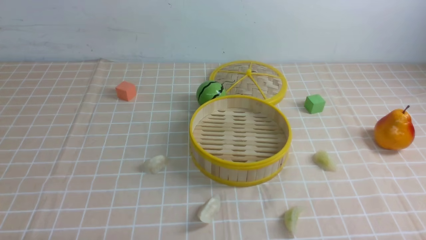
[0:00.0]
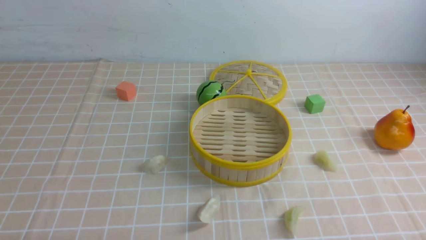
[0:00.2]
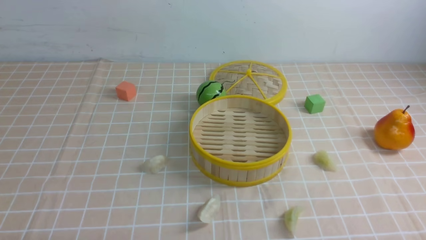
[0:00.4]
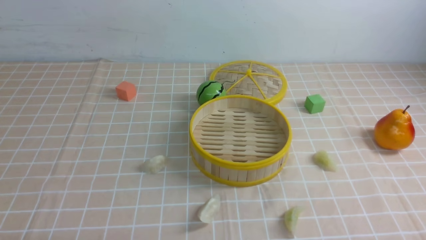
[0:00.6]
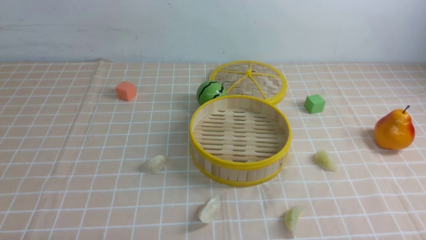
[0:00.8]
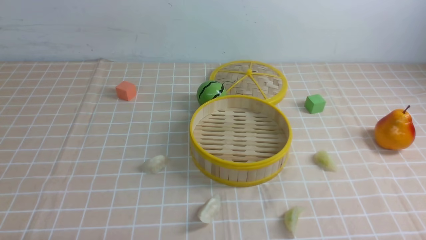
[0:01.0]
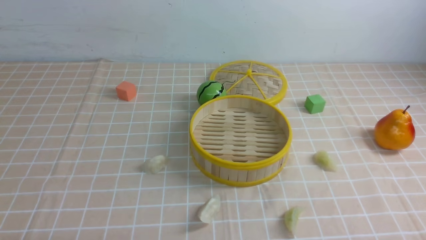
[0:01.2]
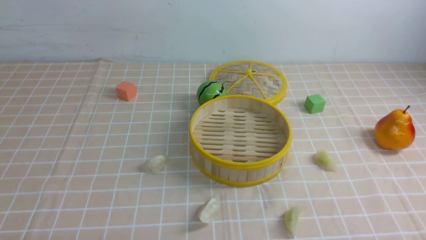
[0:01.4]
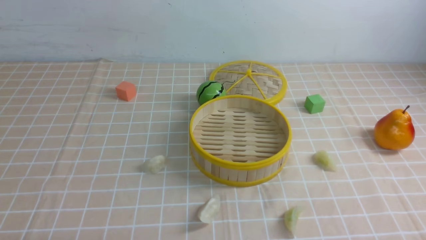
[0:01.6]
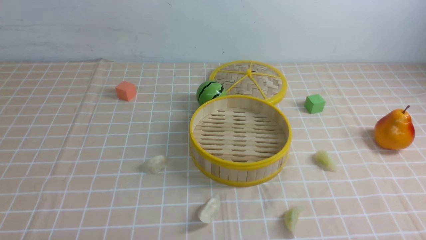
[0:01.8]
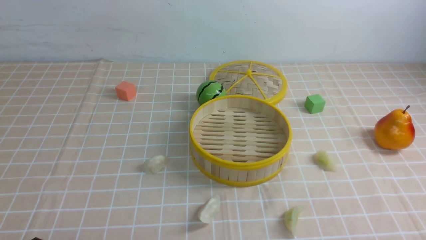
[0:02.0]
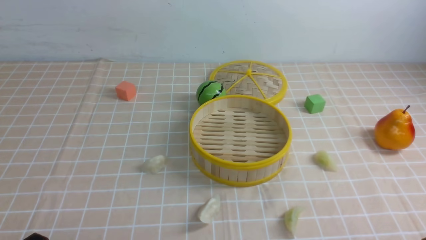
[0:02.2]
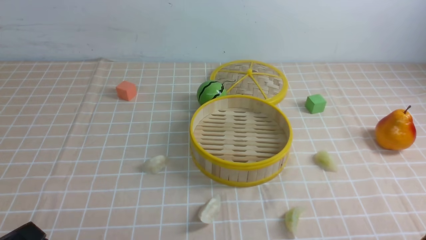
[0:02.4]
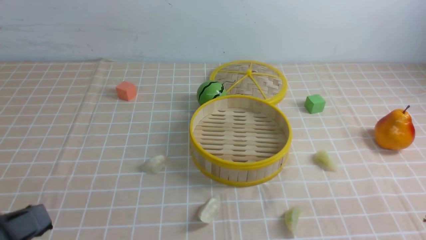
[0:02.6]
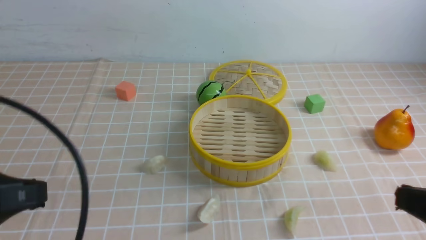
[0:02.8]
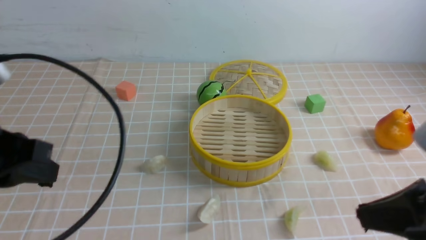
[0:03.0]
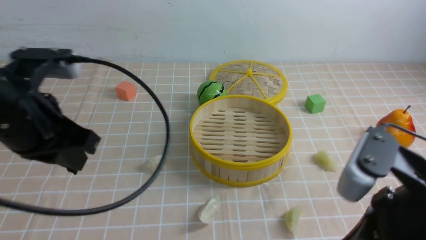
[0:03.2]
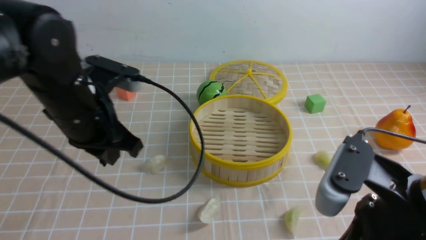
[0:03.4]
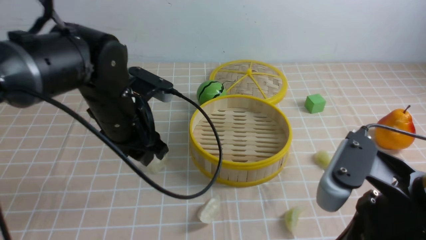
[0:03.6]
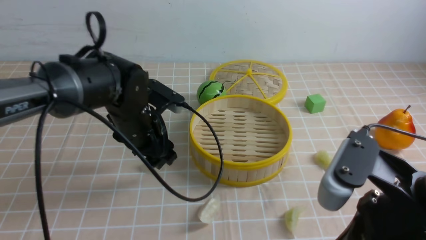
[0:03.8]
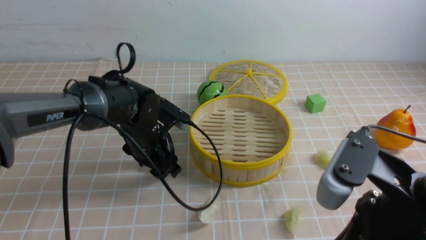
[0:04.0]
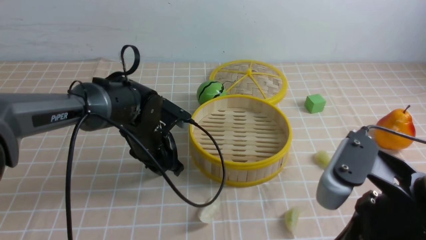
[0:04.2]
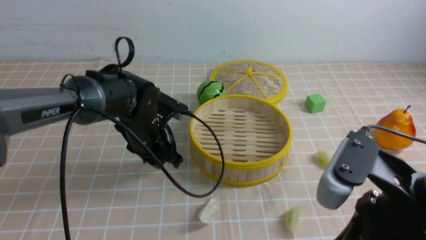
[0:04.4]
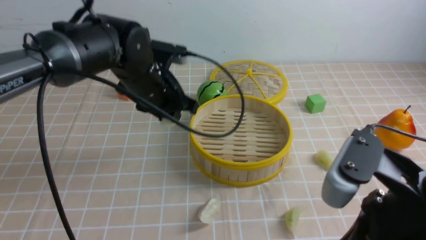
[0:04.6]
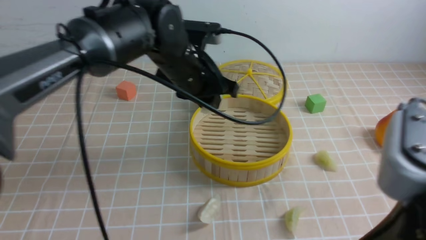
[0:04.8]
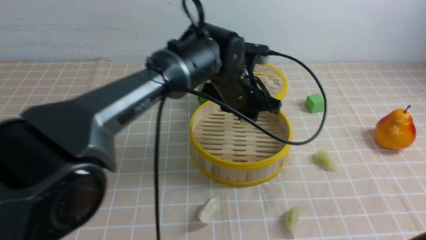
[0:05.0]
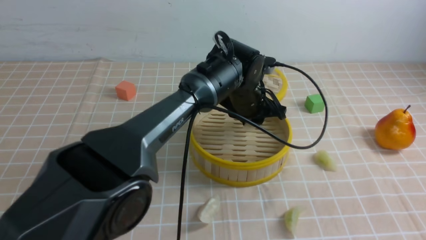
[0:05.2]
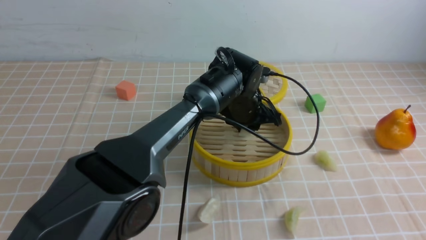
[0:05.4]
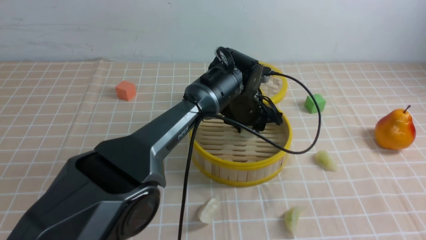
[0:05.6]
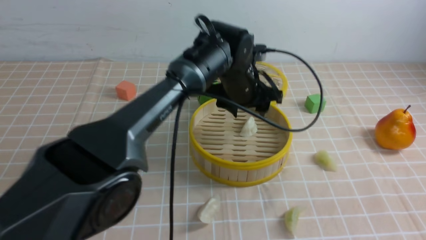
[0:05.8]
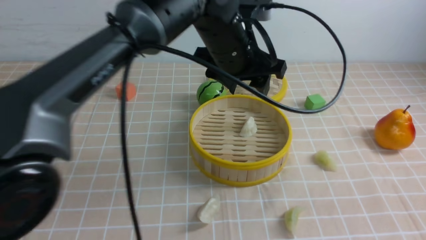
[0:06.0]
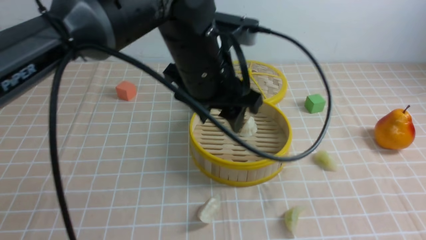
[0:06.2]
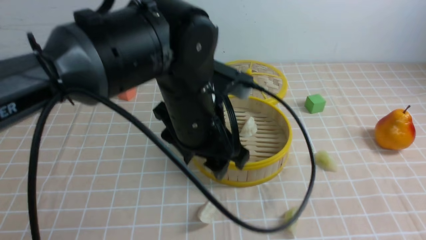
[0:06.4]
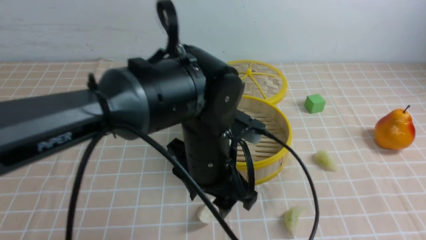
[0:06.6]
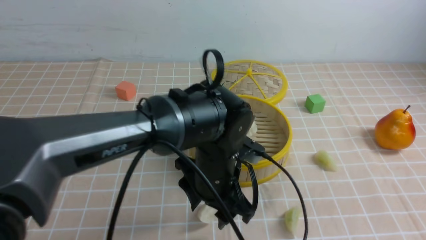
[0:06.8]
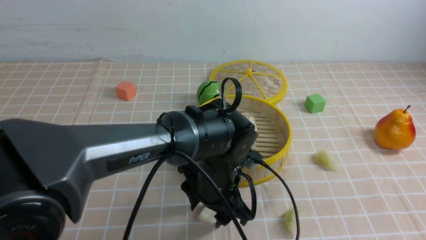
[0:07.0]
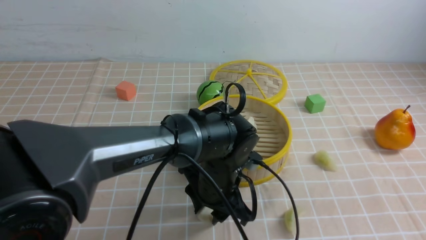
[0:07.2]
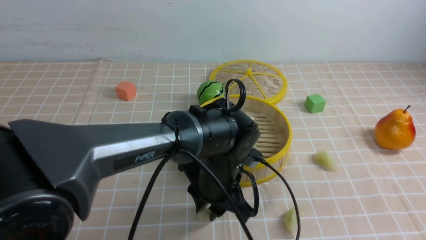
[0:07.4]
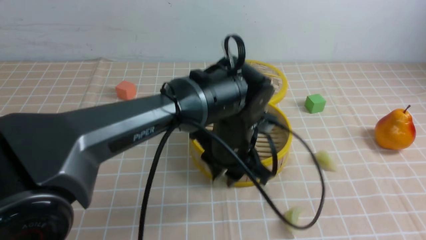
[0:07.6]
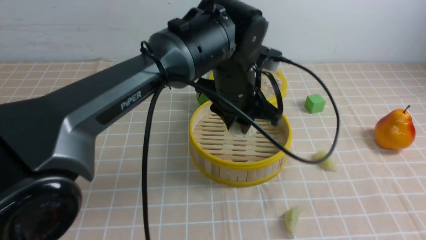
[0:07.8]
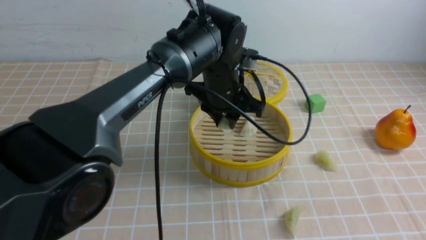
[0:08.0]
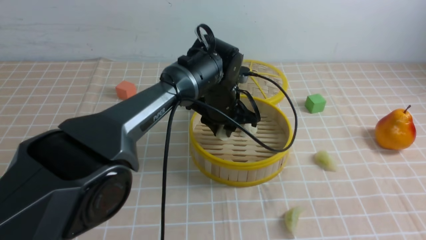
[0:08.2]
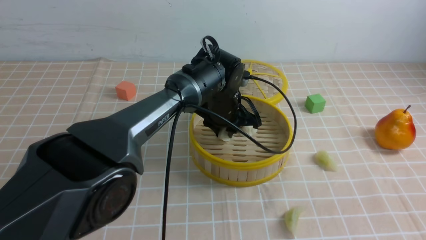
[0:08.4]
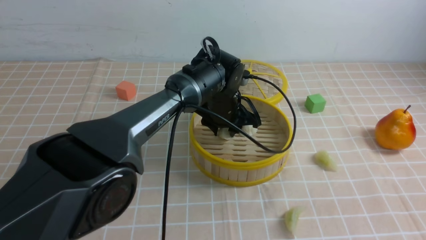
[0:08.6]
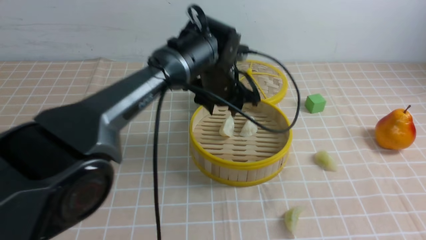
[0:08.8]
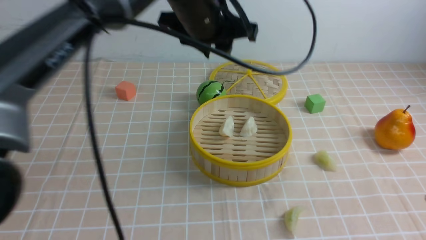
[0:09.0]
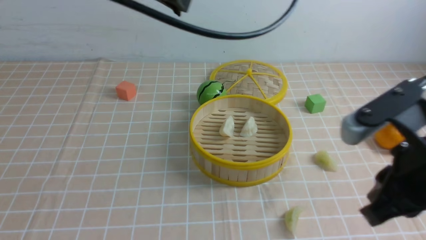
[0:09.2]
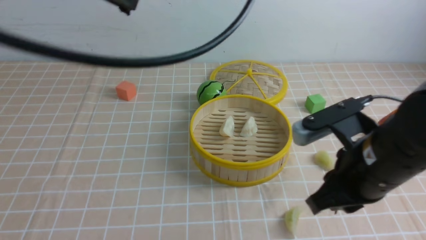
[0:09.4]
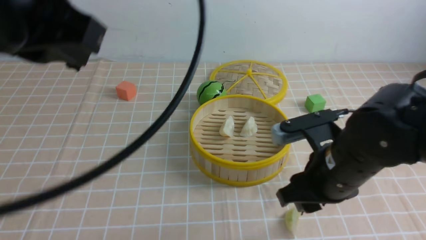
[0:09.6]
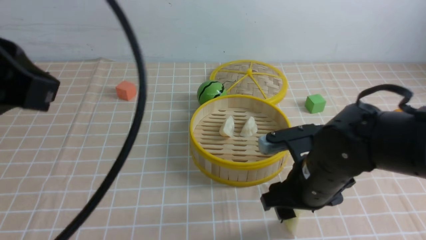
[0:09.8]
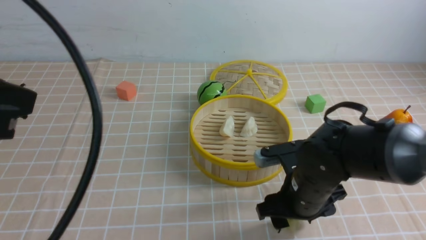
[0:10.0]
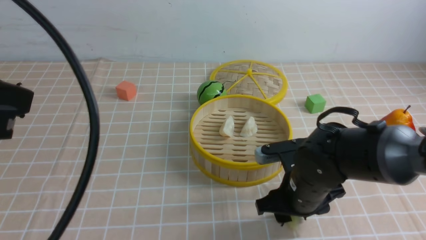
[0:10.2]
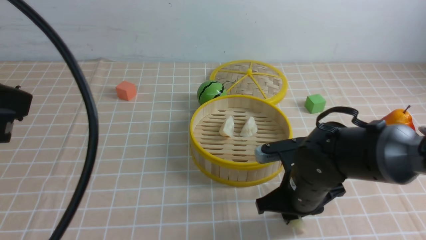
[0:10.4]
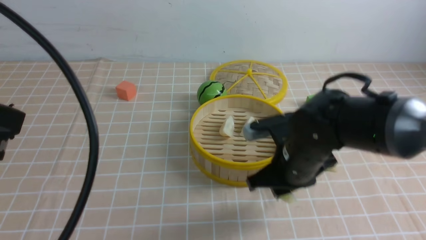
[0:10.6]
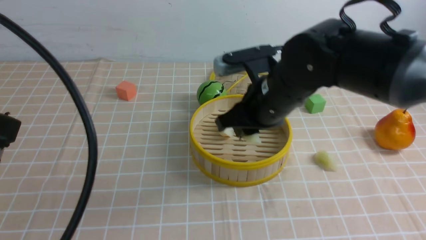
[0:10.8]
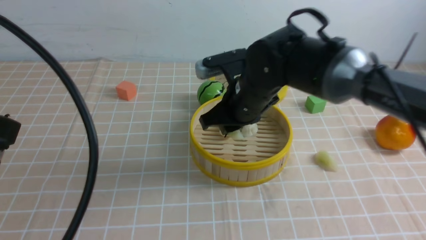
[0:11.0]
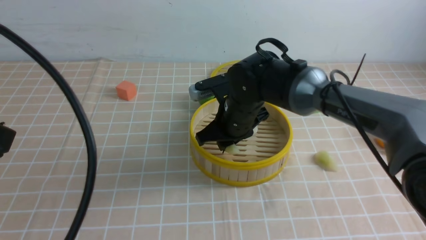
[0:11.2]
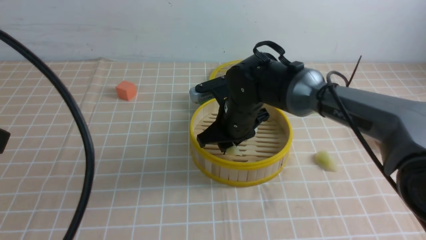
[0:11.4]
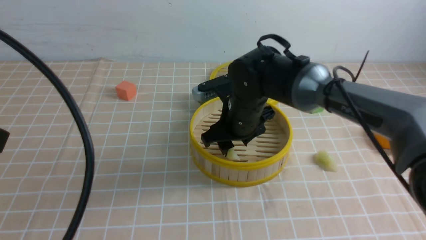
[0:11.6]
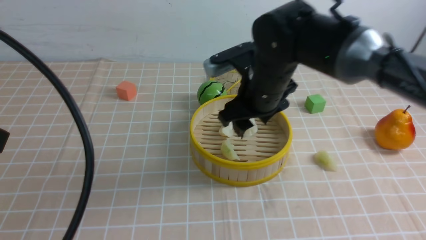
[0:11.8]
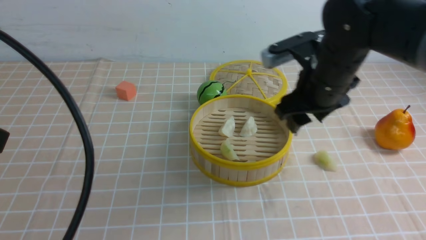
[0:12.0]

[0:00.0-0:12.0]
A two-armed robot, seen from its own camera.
Task of the whole recording: put the dumplings into the steamer on the table with the brown tablecloth.
Step, 0:00.0 to 0:04.2: use the left arm to grab a dumpling.
Step, 0:04.4 to 0:05.8: use the left arm to put the dumpling into the steamer.
Step, 0:06.0 to 0:07.2: use the left arm to grab a dumpling.
Step, 0:07.4 to 0:08.8: use the left arm to put the dumpling into the steamer.
Step, 0:09.0 to 0:10.2: use the right arm to grab a dumpling.
Step, 0:10.6 to 0:11.8: use the right arm to put the dumpling into the steamer.
0:01.6 to 0:03.0: The right gripper moves upward, forward and to the left, about 20 cm, and closes up. Meanwhile the left gripper heads upward and forward, covering roughly 20 cm, and closes its fingers.
0:03.0 to 0:04.4: The left gripper travels forward, downward and to the right by some 30 cm, and opens up. The right gripper shifts approximately 5 cm to the left.
0:04.4 to 0:06.0: The right gripper is displaced upward, to the right and backward by approximately 15 cm, while the left gripper goes some 15 cm upward and to the right, and opens up.
0:06.0 to 0:07.6: The left gripper goes some 10 cm downward, and closes its fingers.
0:07.6 to 0:09.0: The left gripper travels upward by roughly 15 cm. The right gripper is displaced forward by roughly 5 cm.
0:09.0 to 0:10.4: The left gripper travels backward and to the left by roughly 30 cm, and closes. The right gripper shifts about 25 cm downward, forward and to the left, and opens, then closes once more.
0:10.4 to 0:12.0: The right gripper moves upward and forward, some 15 cm, moves about 10 cm to the left and comes back, and opens.

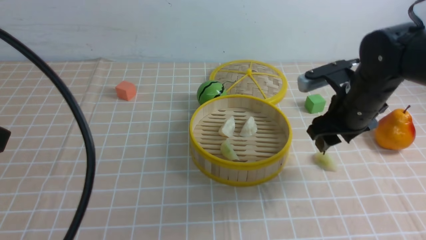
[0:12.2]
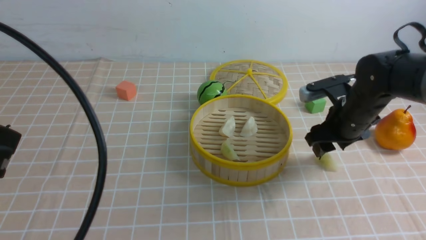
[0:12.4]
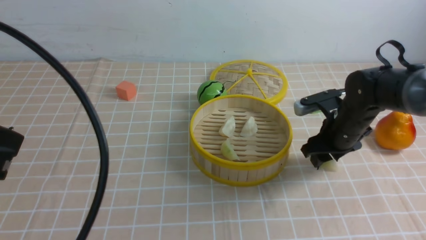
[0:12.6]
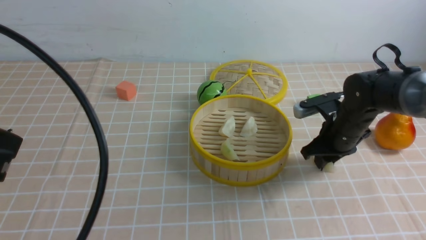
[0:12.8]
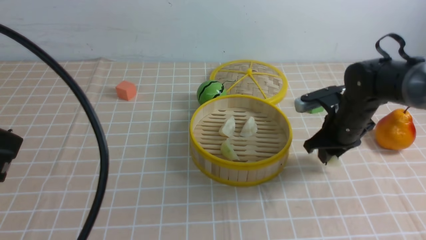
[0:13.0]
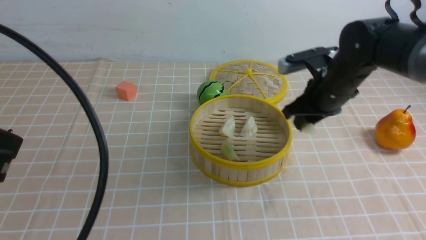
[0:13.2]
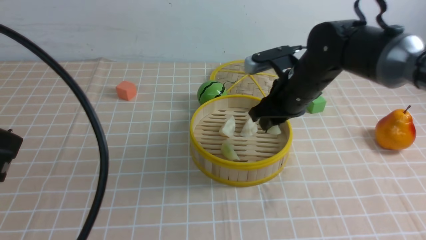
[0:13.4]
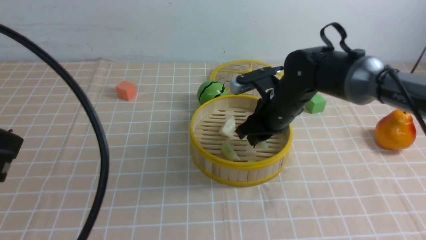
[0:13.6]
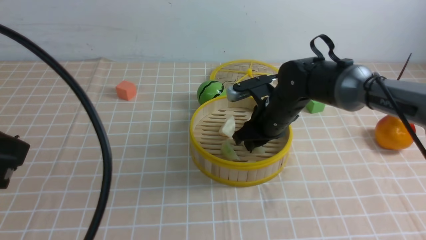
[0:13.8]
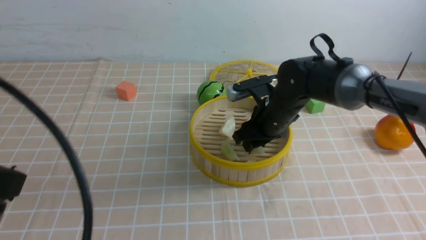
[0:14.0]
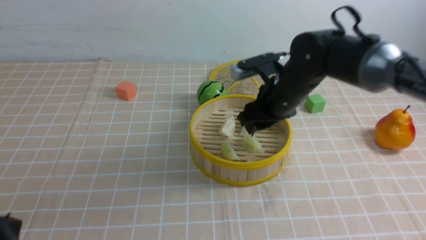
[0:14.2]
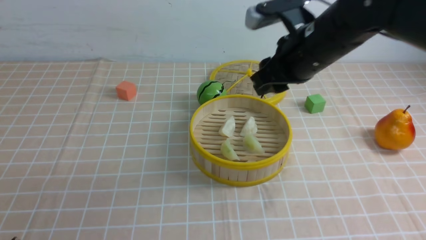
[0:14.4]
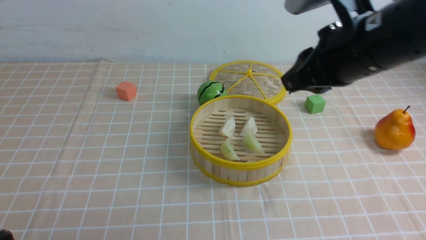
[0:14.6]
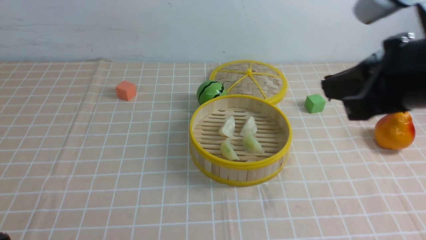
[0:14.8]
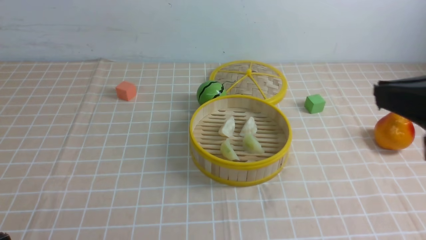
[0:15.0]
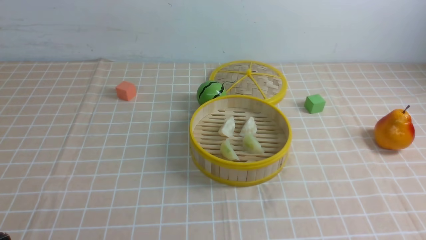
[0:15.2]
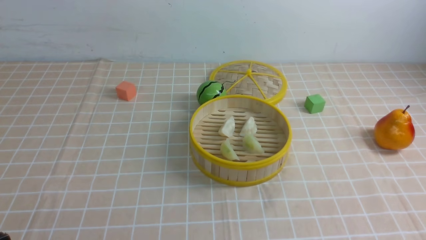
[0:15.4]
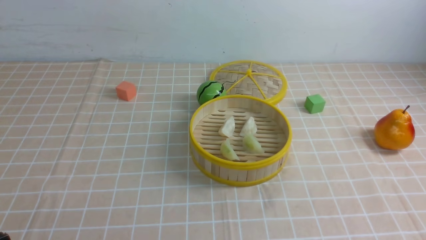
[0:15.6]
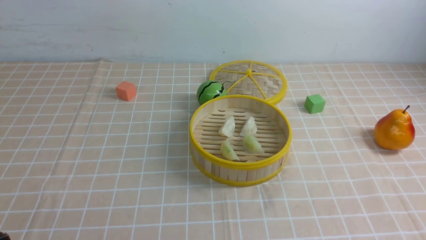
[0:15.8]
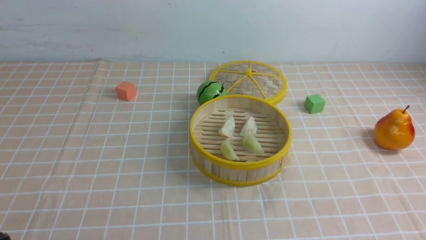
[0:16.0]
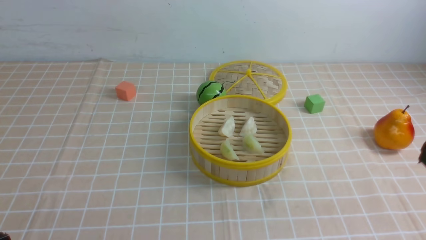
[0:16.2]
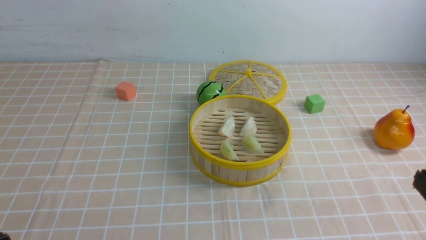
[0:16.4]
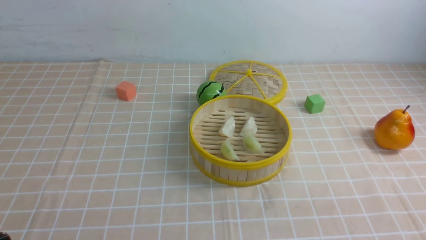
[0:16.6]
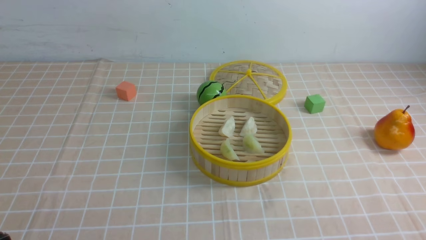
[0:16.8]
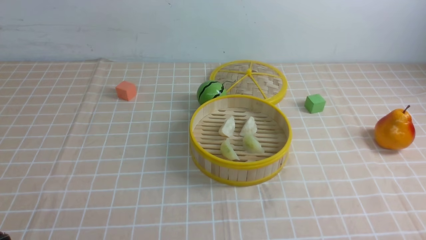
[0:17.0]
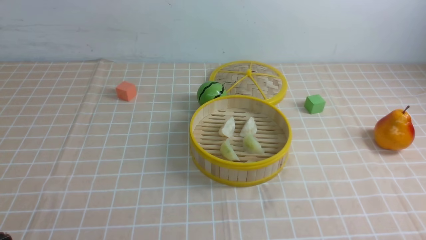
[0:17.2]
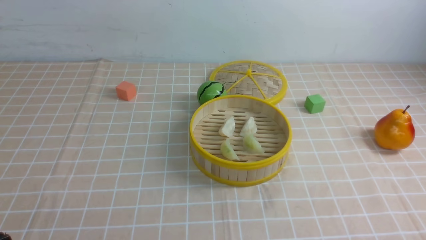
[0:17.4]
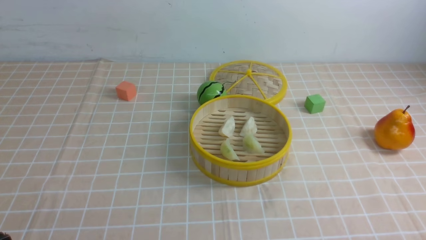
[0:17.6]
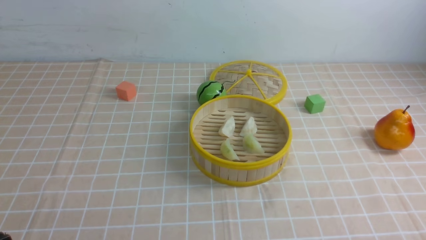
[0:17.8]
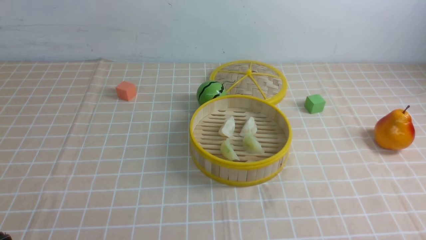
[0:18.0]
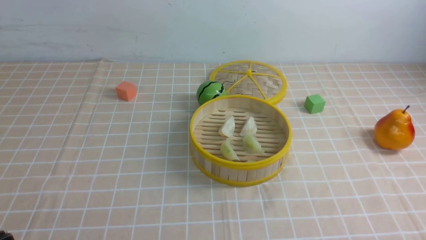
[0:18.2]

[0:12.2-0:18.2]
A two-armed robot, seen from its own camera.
Task of the whole recording: put the dumplings into the steamer on the table with the brown tablecloth.
Step, 0:12.2 to 0:12.8: use the right arm to grab a dumpling.
Step, 0:13.0 to 0:14.2: use the right arm to put the dumpling into the steamer.
0:12.2 to 0:13.8: The right gripper goes some 10 cm to the left, and closes up.
0:13.8 to 0:15.2: The left gripper goes approximately 15 cm downward and backward; the right gripper goes approximately 40 cm backward, upward and to the right, and closes up.
